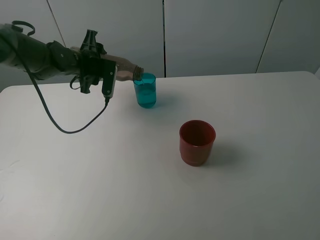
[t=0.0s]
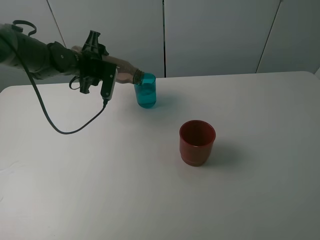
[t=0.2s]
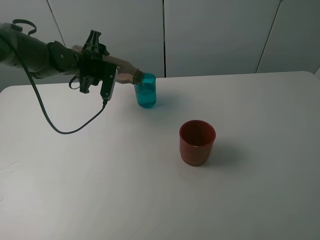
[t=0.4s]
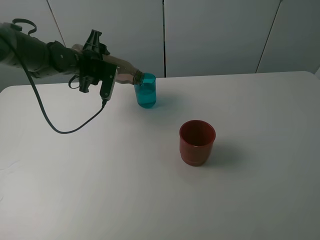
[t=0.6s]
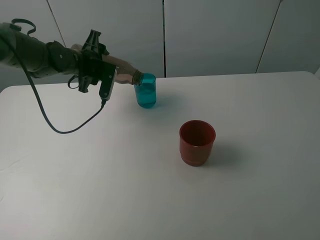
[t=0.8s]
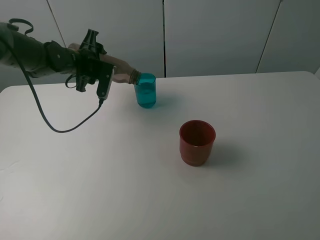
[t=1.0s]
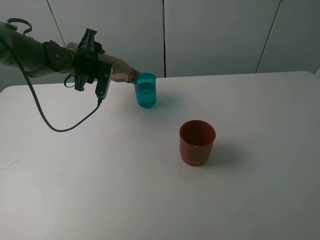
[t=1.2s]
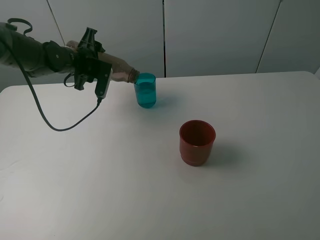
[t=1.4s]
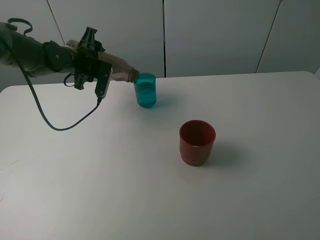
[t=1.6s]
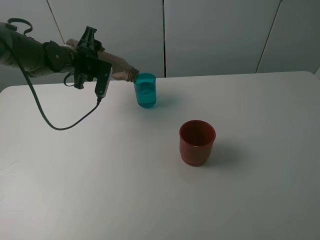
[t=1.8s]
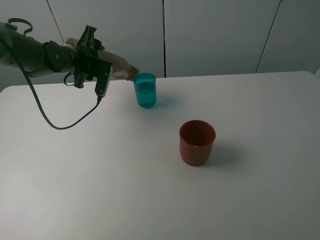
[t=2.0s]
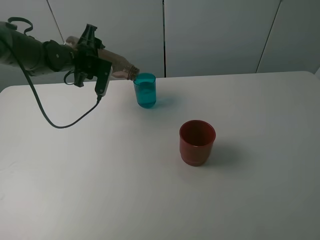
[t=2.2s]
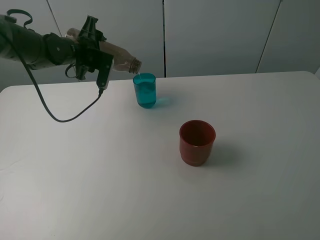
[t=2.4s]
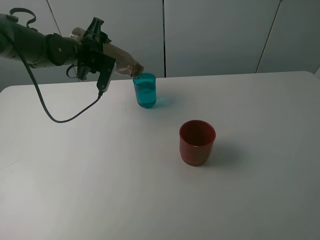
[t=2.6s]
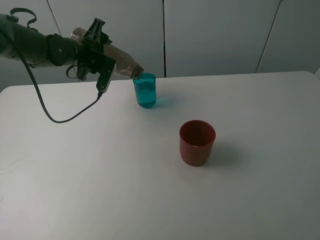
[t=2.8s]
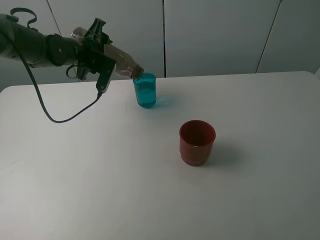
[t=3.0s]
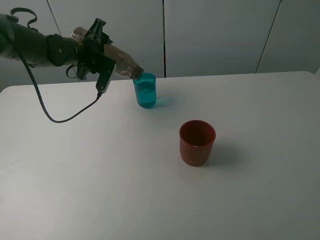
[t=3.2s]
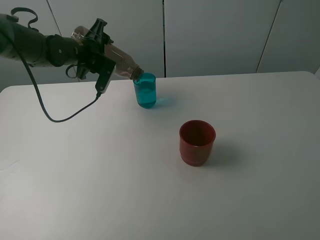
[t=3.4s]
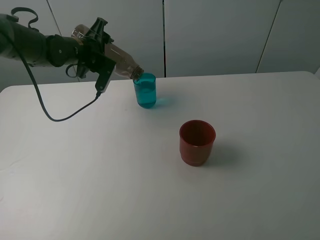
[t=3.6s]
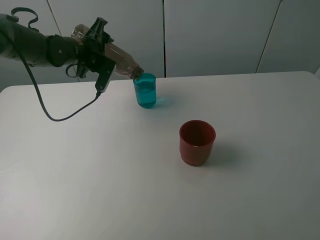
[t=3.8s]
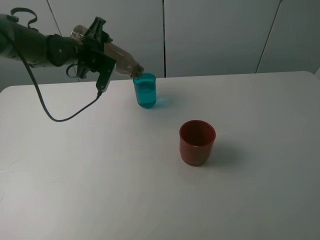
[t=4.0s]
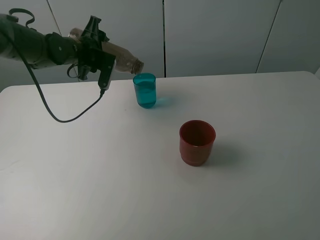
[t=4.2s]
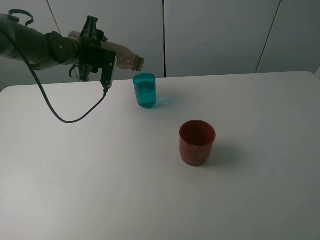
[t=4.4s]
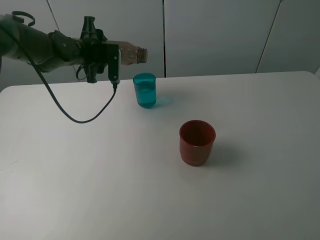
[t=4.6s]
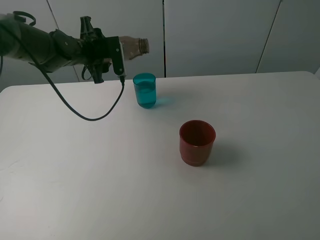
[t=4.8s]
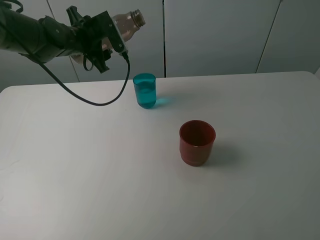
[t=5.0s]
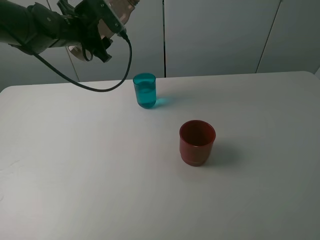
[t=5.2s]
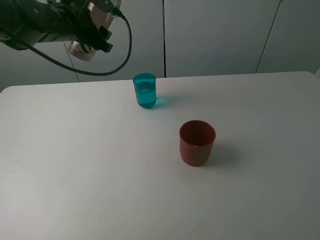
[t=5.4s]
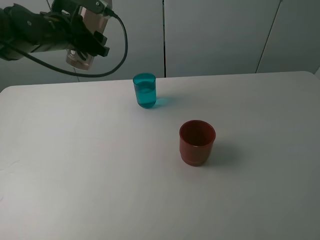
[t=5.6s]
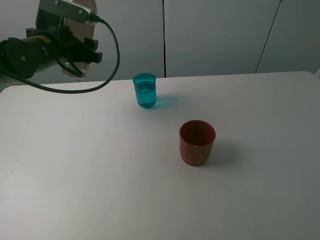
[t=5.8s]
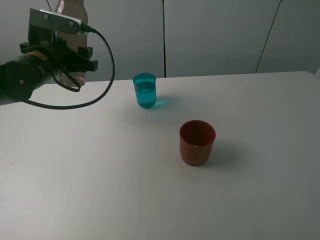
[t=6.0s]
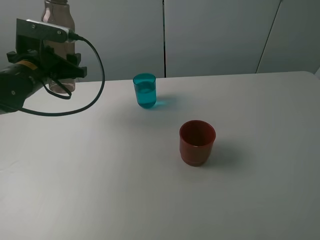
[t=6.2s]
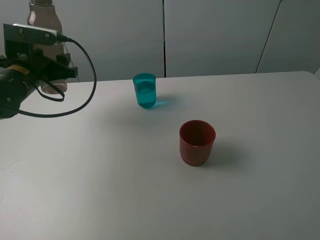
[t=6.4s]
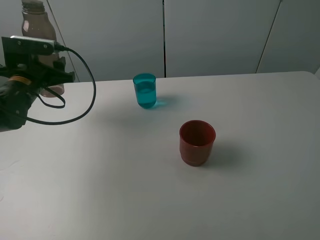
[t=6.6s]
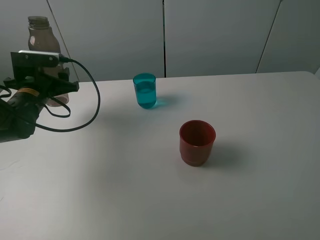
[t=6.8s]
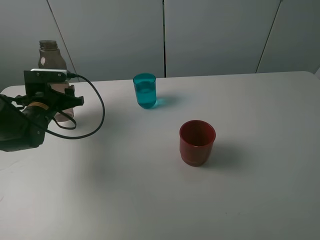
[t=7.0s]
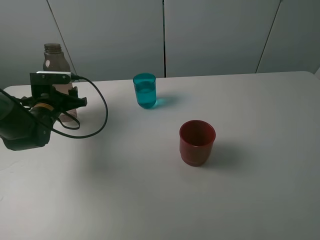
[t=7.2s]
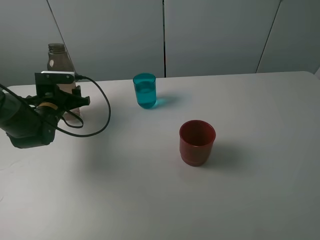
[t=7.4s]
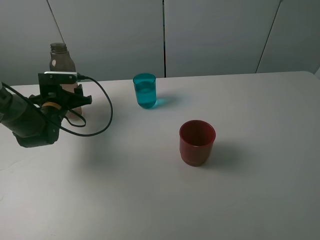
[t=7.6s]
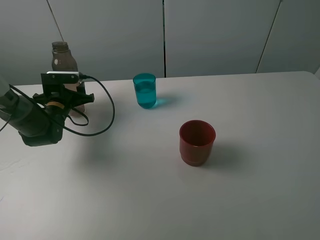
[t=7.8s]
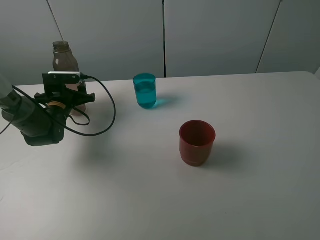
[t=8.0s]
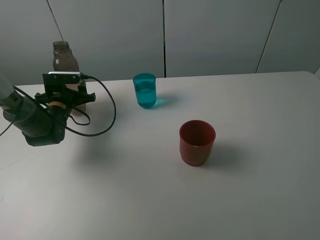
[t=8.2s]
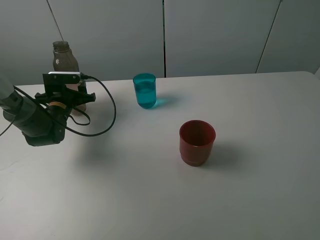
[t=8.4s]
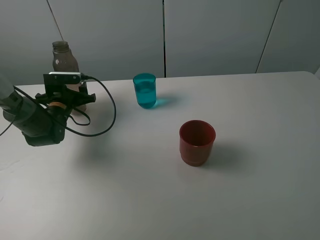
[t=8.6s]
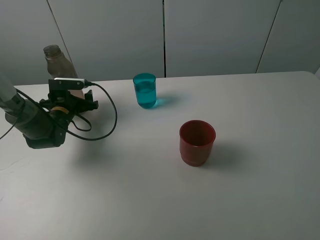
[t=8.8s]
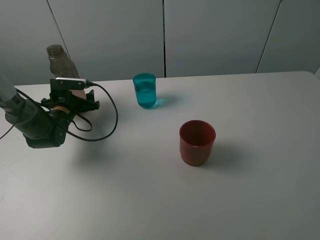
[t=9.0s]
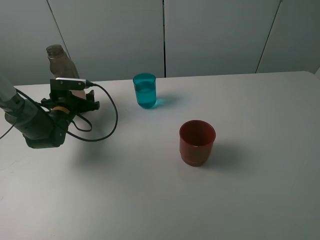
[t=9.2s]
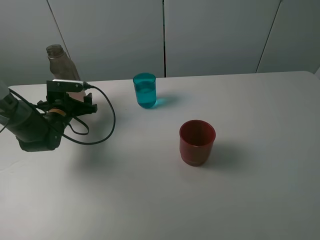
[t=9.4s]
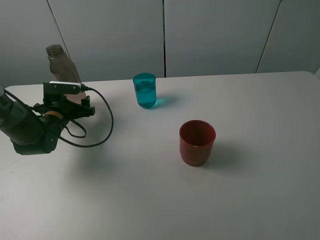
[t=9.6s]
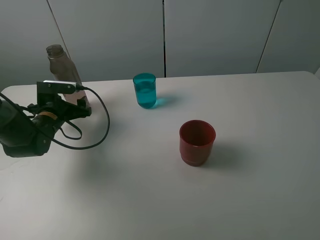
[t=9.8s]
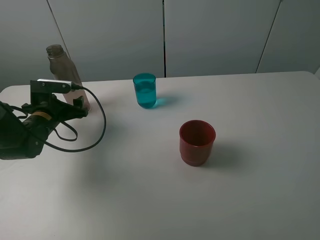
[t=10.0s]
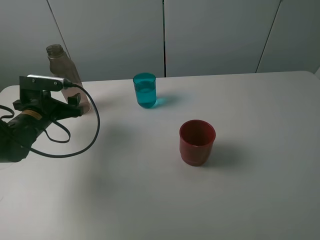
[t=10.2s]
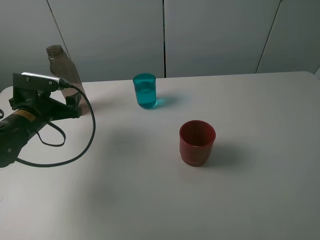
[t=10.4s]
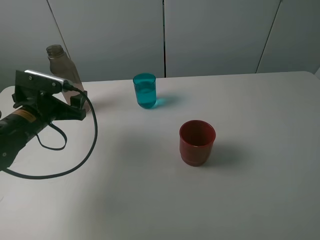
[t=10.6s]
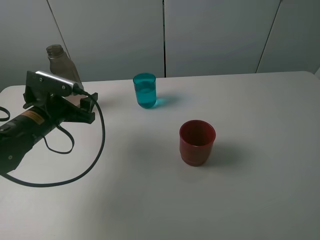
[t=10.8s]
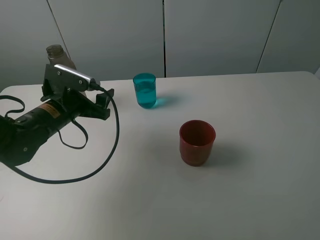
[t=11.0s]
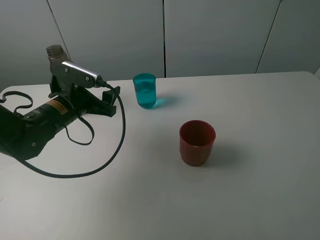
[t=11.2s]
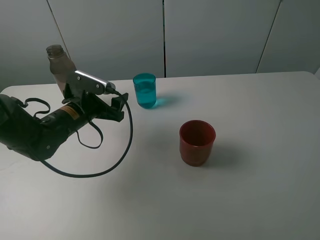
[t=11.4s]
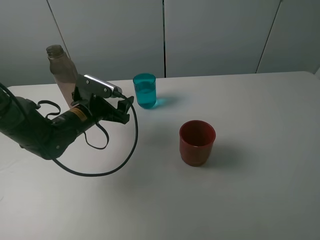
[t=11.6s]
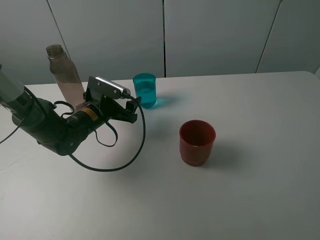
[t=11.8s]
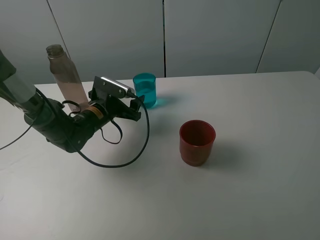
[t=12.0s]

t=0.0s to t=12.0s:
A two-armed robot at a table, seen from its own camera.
Task of the whole recording: pick up the bottle and pour water into the cup, then pick up the cup containing water and pour it into another cup.
Step, t=0.0s to t=4.2s: Pour water from brown bottle to blue cup with the left gripper.
Step, t=4.4s to t=9.2s: Place the brown bottle with the left gripper.
t=0.0s to t=3.0s: The grippers stay close to where they were, moving slightly.
t=3.0s to t=4.4s: There are only small adjustments of the grippers.
t=4.4s to t=6.0s: The left gripper is displaced backward by roughly 10 cm.
t=6.0s to t=7.6s: The left gripper moves downward, about 15 cm.
t=7.6s to t=9.0s: The left gripper opens up.
t=9.0s to t=10.4s: The right gripper closes up, while the left gripper heads backward and upward, covering roughly 15 cm.
t=10.4s to t=12.0s: The left gripper heads to the right, forward and downward, covering roughly 15 cm.

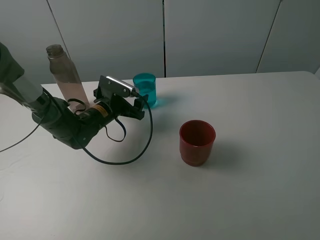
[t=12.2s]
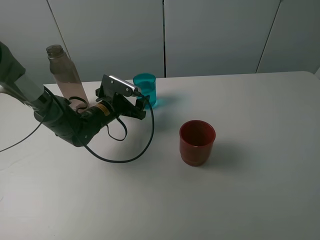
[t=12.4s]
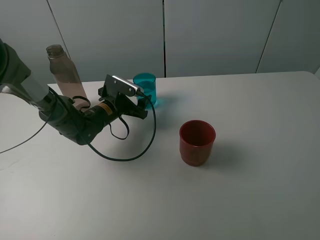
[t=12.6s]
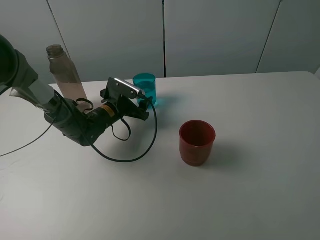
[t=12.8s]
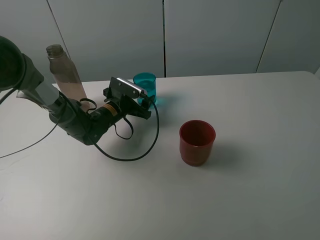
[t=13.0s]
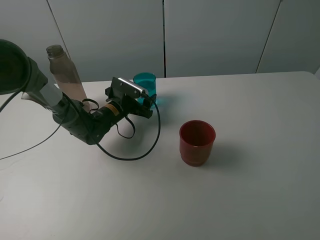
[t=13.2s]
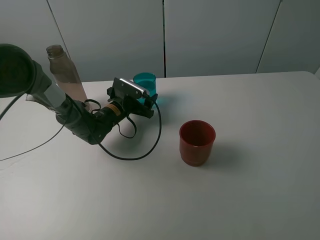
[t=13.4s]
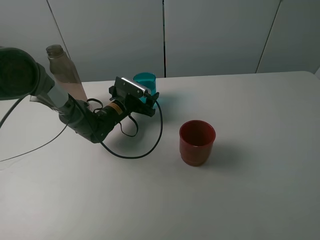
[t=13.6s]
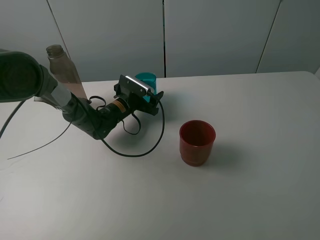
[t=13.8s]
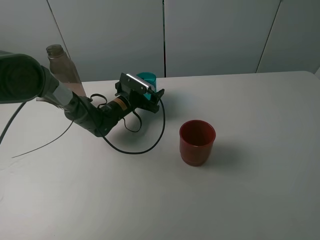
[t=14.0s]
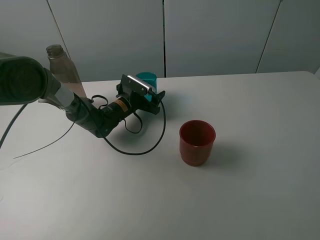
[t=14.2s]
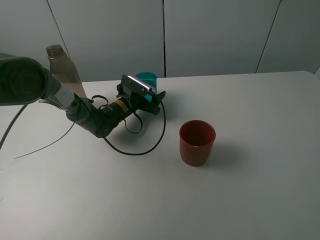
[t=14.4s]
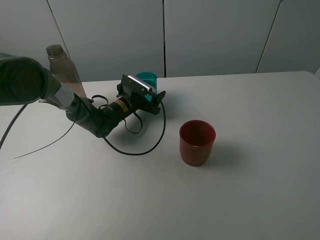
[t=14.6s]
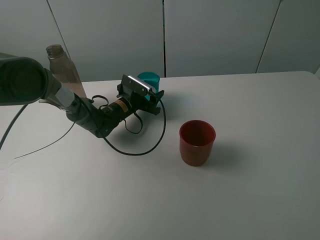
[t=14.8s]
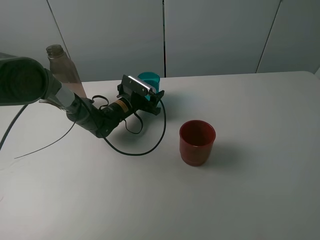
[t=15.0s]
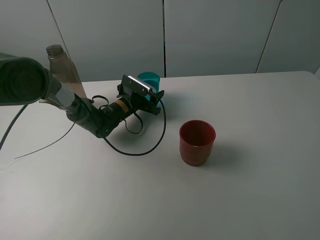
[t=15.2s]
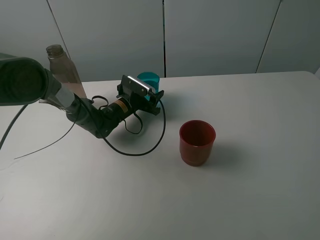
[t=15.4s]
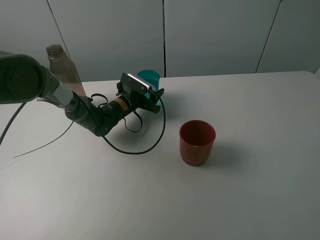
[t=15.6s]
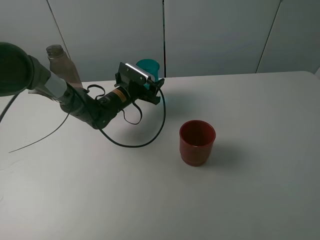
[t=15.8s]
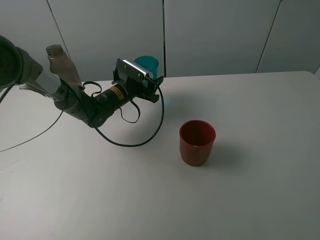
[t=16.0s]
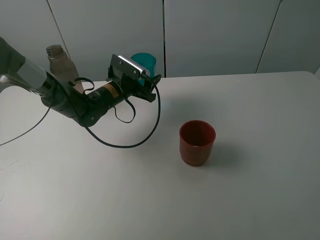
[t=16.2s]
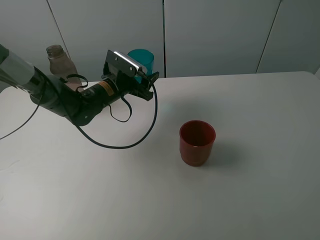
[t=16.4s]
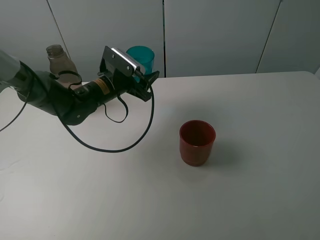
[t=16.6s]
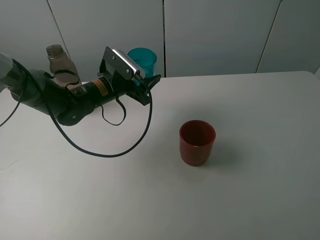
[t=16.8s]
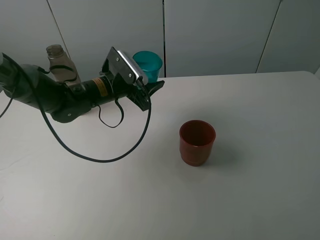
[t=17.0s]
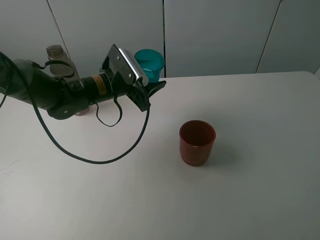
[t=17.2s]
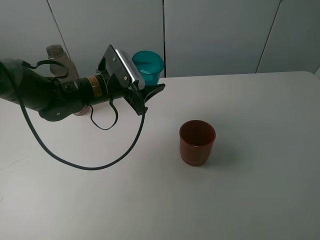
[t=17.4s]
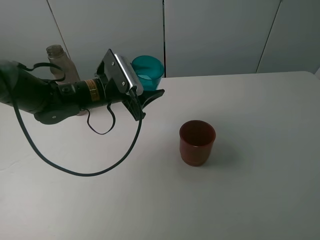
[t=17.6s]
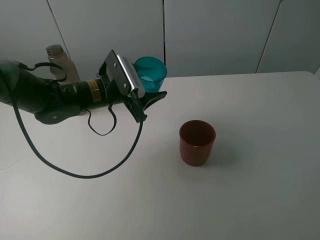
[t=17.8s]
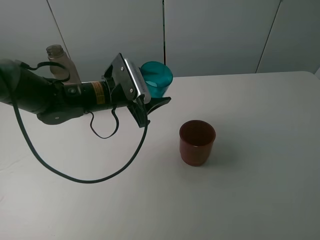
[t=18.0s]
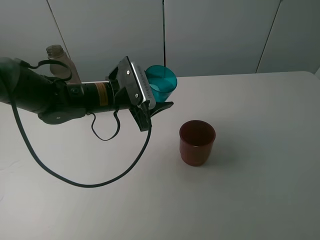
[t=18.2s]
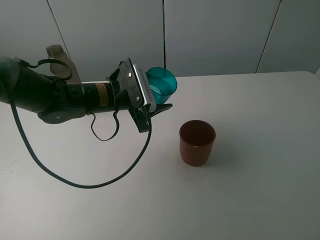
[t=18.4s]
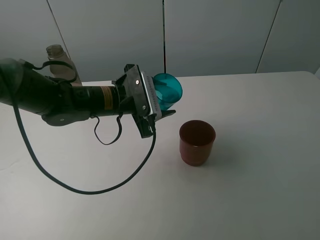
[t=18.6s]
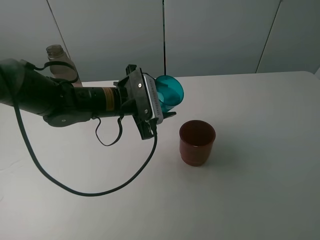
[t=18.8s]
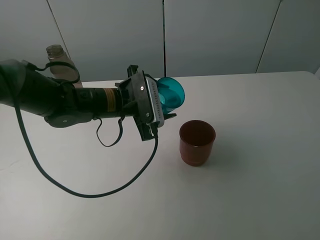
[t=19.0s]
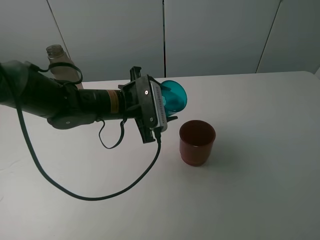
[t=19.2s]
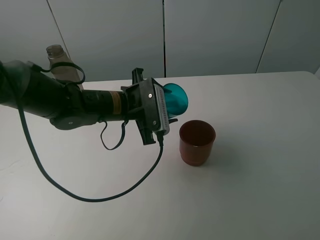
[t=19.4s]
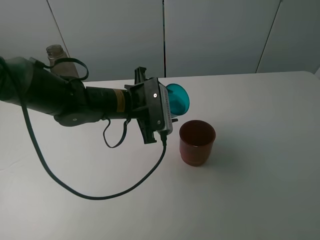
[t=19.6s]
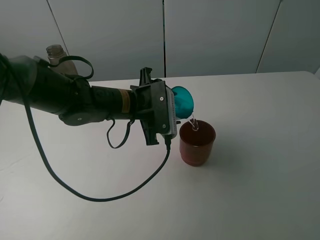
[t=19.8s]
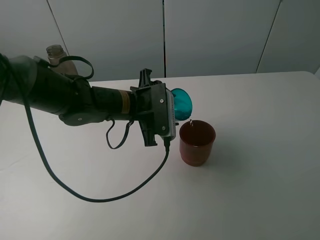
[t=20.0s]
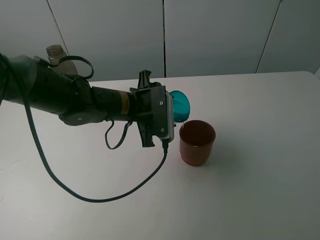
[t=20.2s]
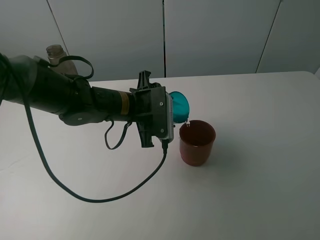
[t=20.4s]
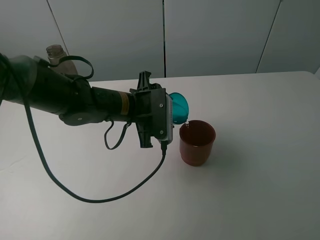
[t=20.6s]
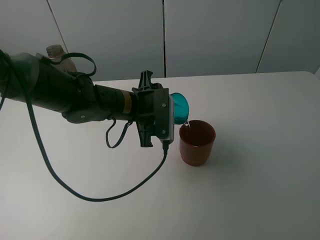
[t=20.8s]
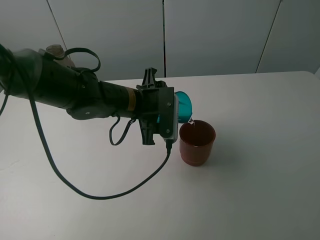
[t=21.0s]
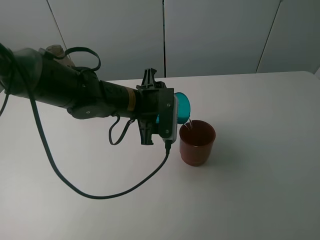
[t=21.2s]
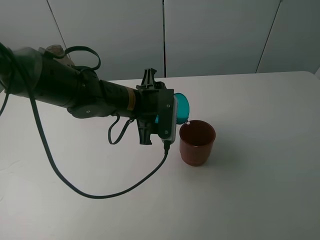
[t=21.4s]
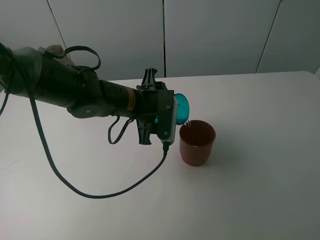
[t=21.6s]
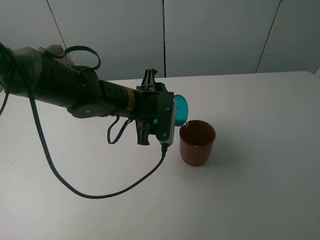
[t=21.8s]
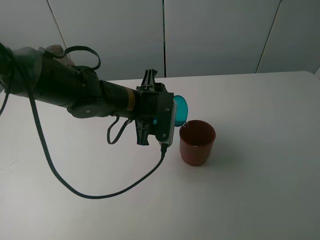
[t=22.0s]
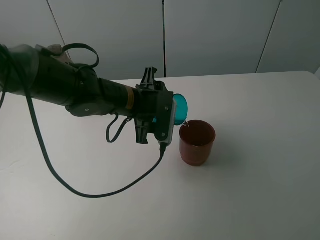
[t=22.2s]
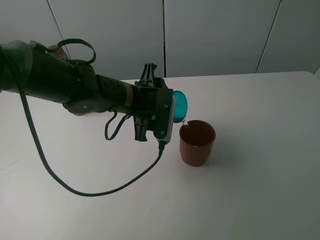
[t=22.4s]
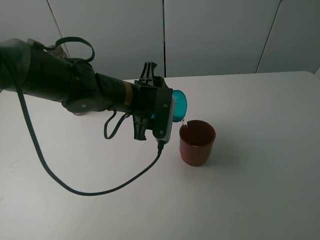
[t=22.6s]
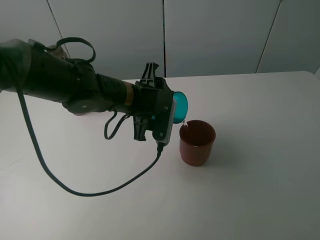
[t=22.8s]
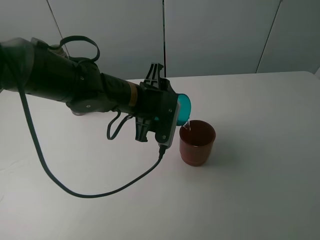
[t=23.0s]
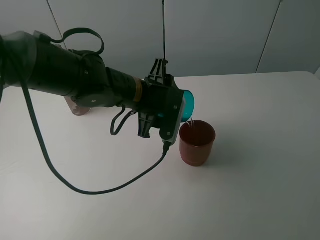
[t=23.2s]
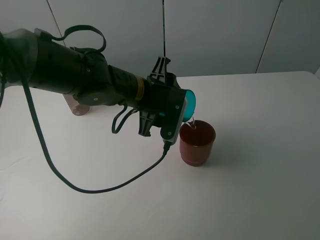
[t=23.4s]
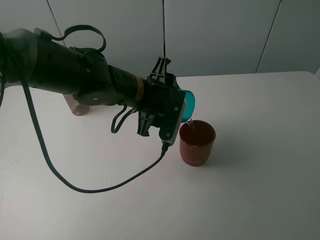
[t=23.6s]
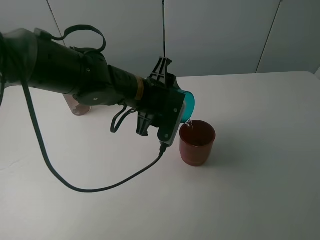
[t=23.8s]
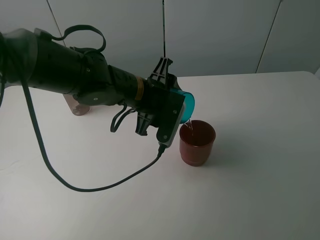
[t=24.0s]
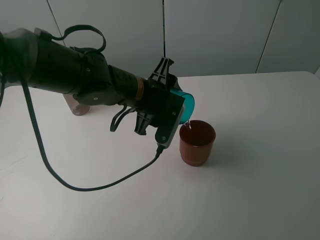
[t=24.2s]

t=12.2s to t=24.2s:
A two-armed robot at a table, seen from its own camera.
Task of the whole recording: pick up the bottle and pour water into the cup, then pick up the cup containing water and pour it into another cup.
Step, t=12.2s to t=15.0s: Grasp the blue cup with the left gripper.
t=12.2s to t=13.8s: The left gripper travels forward by roughly 5 cm.
t=13.8s to t=15.2s: The left gripper closes.
t=15.2s to t=16.6s: The left gripper moves upward and backward, about 10 cm.
t=16.6s to t=18.2s: The left gripper is displaced backward by some 5 cm.
t=19.8s to t=22.6s: The grippers move only a little.
t=22.6s to t=24.2s: The grippers move only a little.
